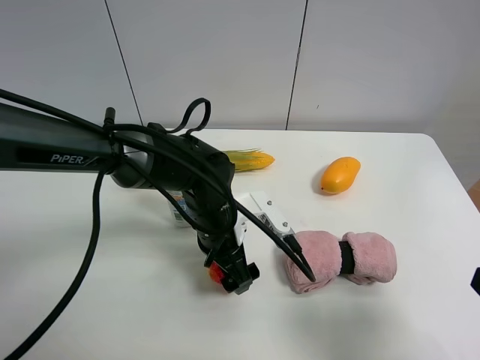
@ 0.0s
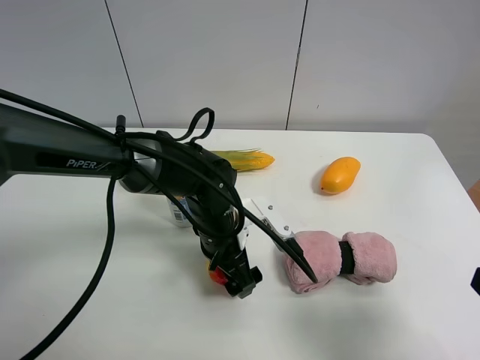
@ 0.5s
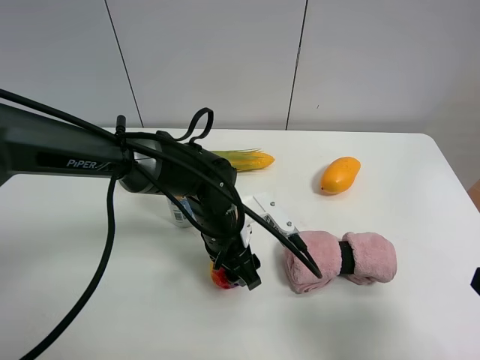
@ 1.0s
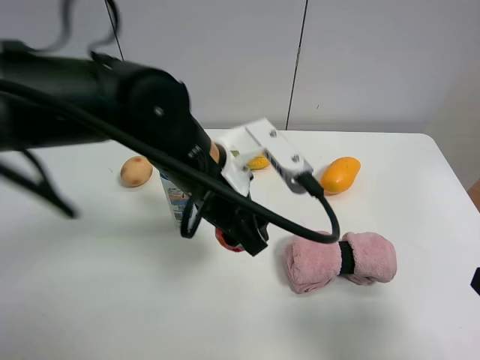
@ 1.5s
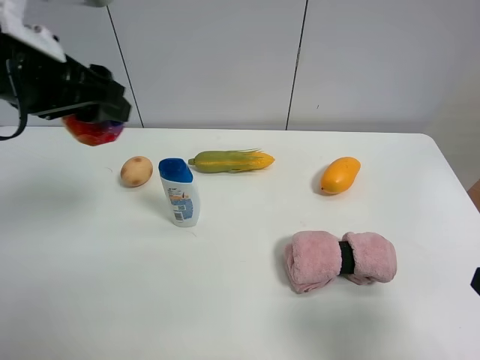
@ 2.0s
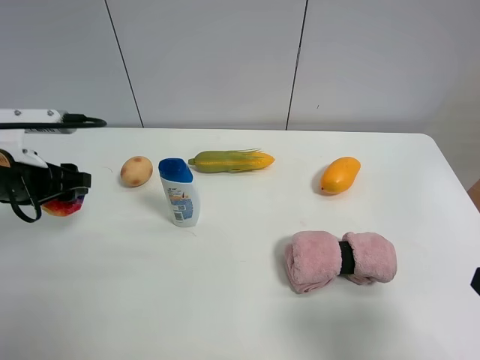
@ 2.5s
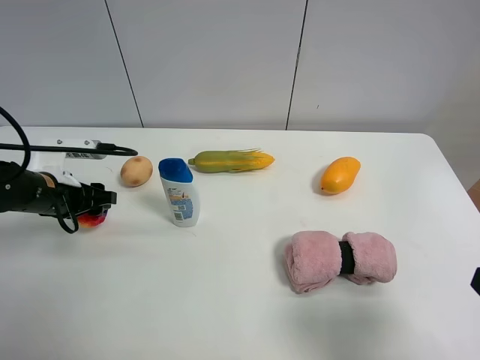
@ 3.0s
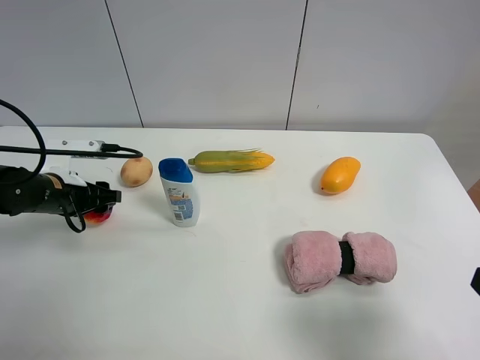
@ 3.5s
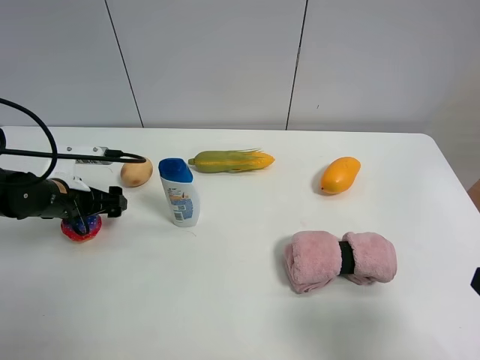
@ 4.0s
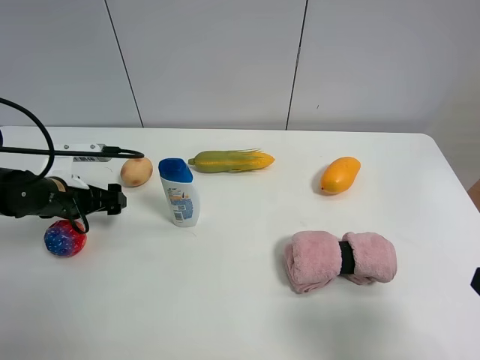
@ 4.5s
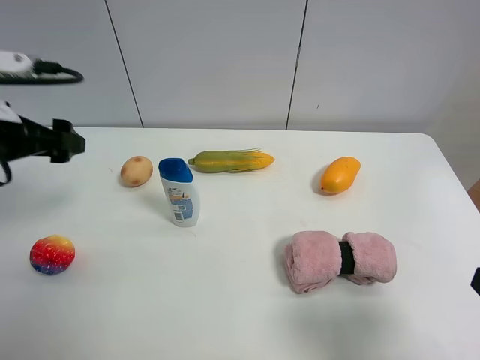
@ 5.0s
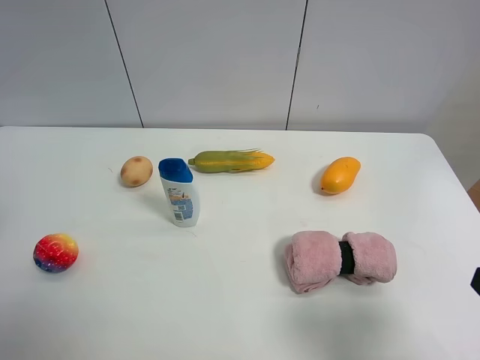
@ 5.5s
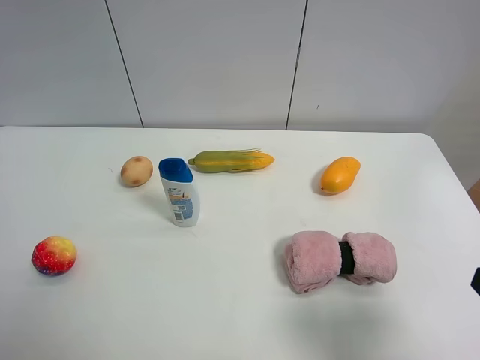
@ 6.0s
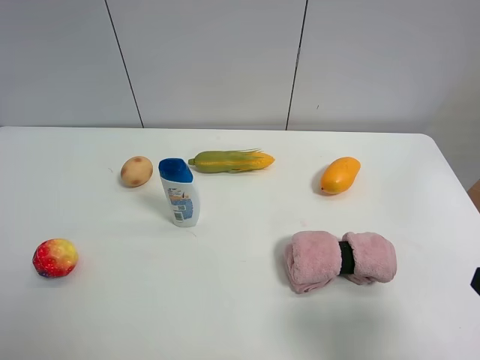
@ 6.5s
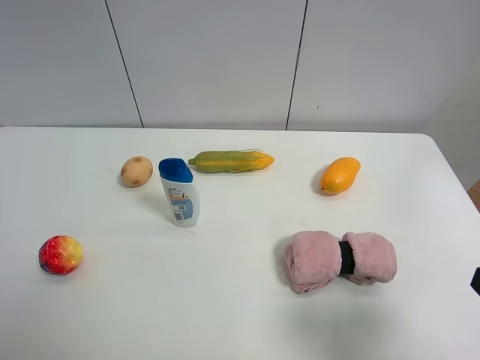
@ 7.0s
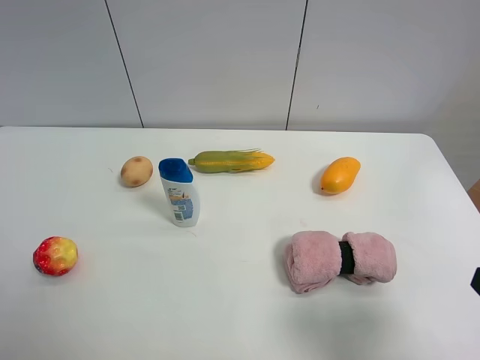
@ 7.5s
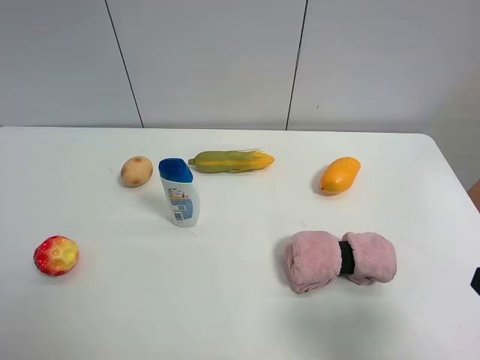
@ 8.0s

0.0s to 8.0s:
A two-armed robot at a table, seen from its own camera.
Task of the whole recording: the gripper move the object.
Step, 1.0s to 4.0s: Place the colorful ball on the table with the left gripper.
0.0s to 2.0s: The left gripper heads upward and to the left, covering some 30 cm, and closes.
2.0s to 4.0s: The left gripper moves downward, about 25 cm, and opens its fingers.
4.0s to 6.0s: The left gripper heads upward and backward, covering some 35 cm.

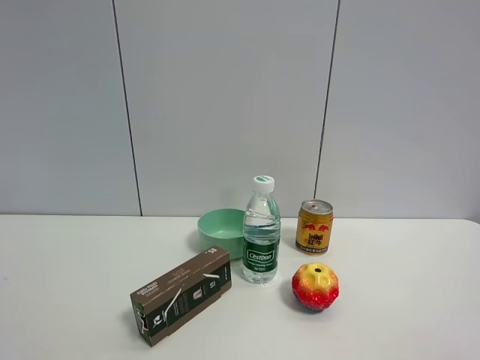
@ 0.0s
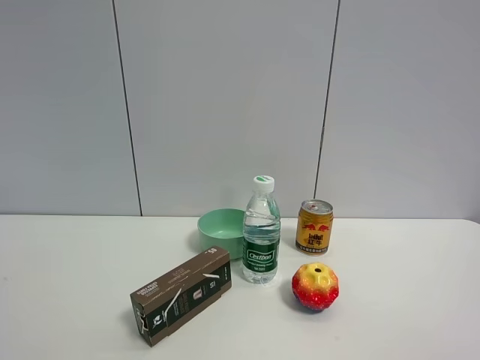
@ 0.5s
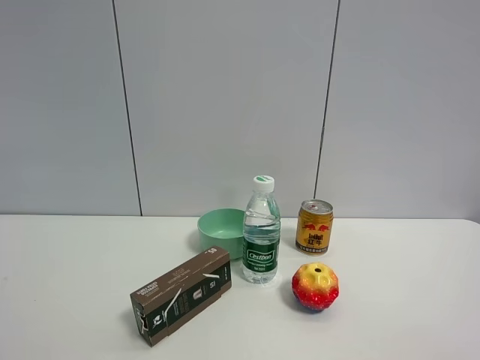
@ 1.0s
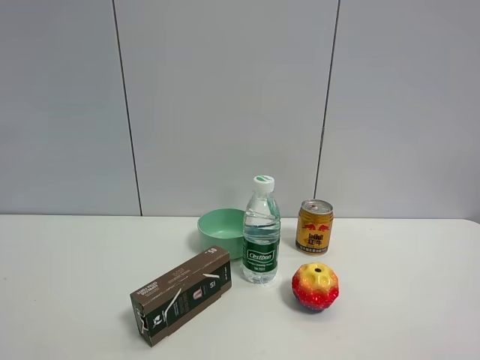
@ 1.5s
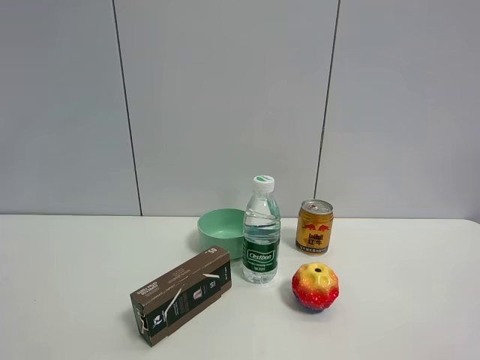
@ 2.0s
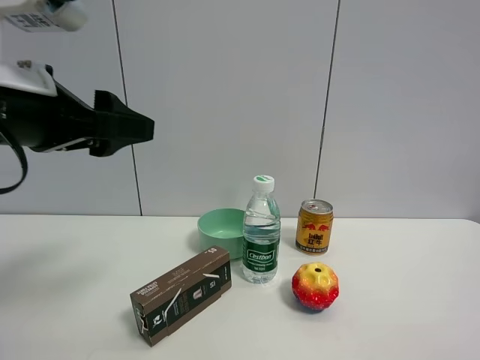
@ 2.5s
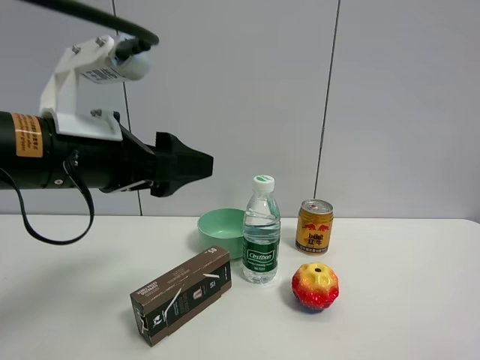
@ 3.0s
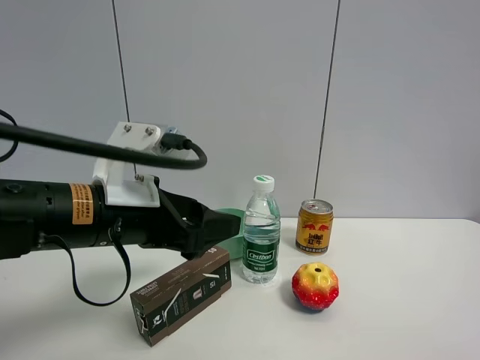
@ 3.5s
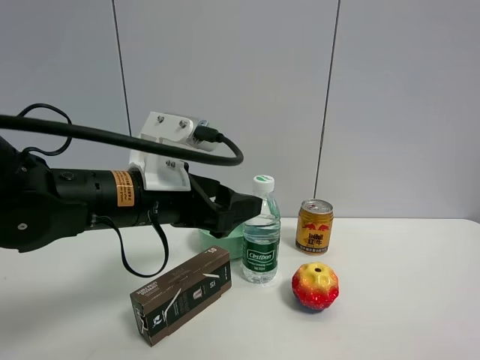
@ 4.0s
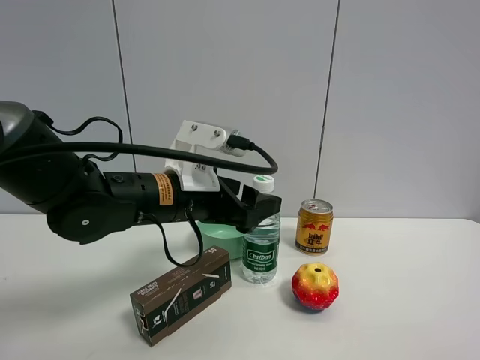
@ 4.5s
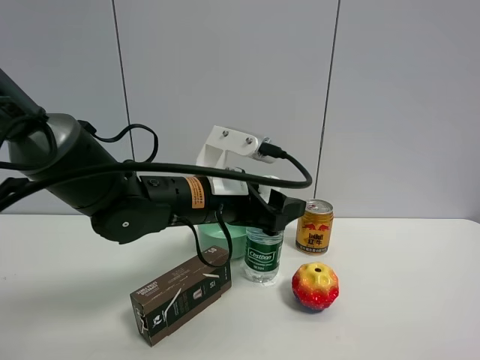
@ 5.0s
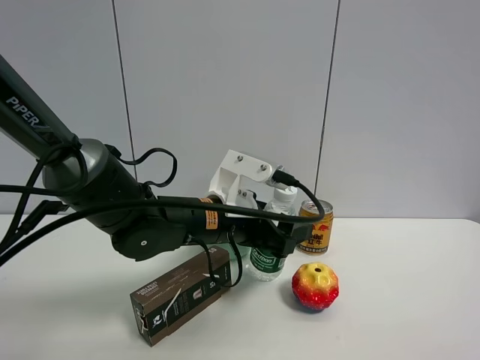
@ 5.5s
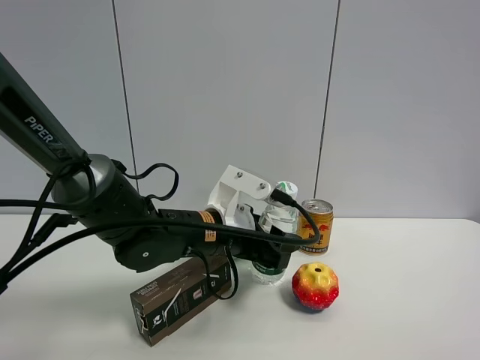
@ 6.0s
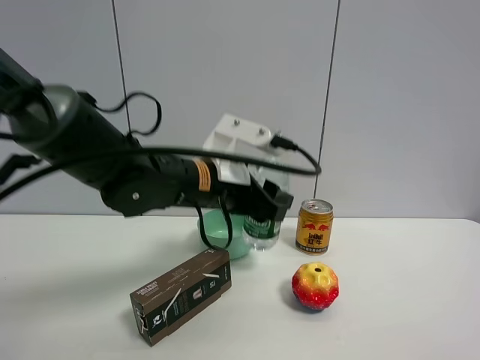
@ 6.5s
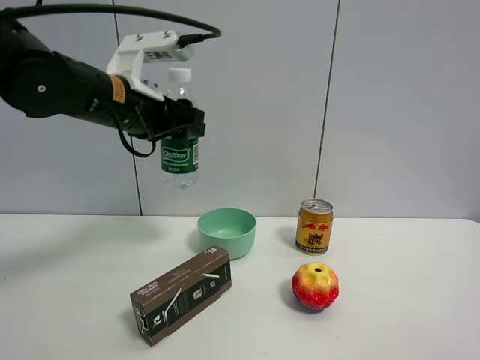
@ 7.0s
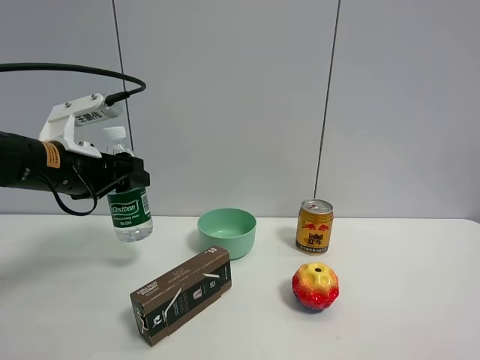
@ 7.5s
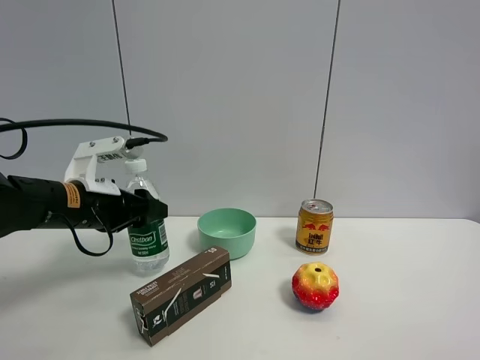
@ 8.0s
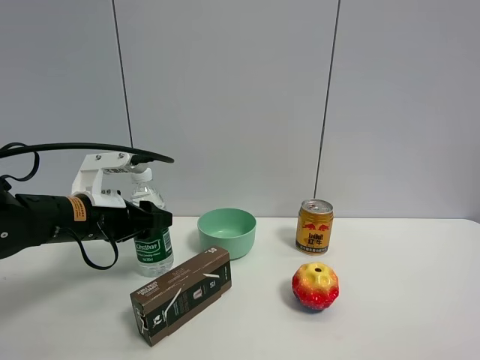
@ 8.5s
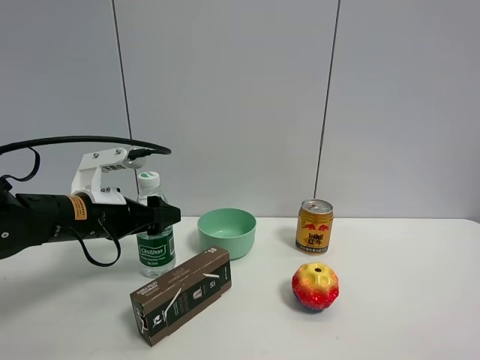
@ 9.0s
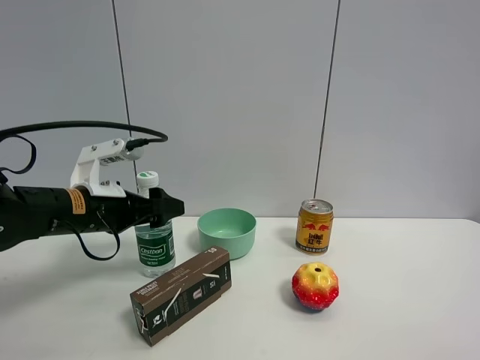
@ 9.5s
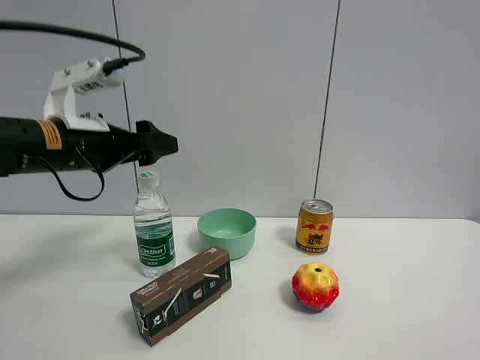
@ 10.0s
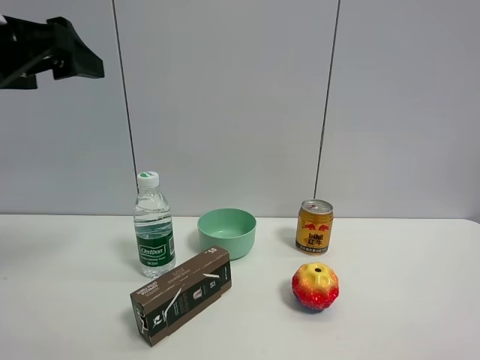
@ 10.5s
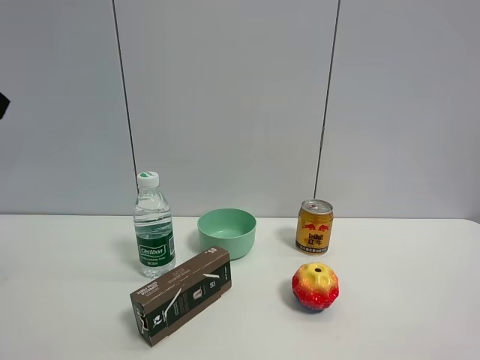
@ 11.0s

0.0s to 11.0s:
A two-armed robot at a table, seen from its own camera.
Task of the whole recording: the gripper move the object.
Step, 0.0s to 6.0s: Grasp the YiBao mineral water with the left gripper.
Step, 6.5s to 10.0s: Place the YiBao mineral water on the table with the left gripper.
2.0s to 3.5s: The left gripper moves to the right, downward and forward, some 25 cm.
3.5s to 5.5s: The left gripper is displaced to the right, forward and downward by approximately 15 cm.
5.5s to 7.5s: The left gripper heads to the left, covering roughly 20 cm, and closes up.
7.5s to 9.0s: The left gripper moves downward, about 5 cm, and opens up.
9.0s to 11.0s: The left gripper shifts about 30 cm upward and backward.

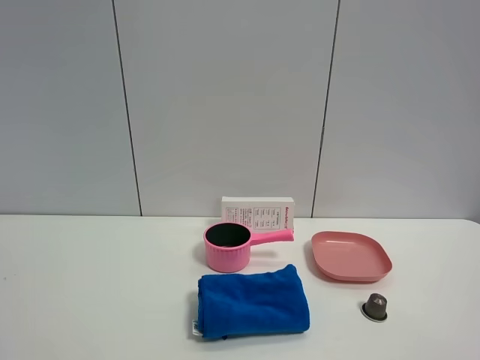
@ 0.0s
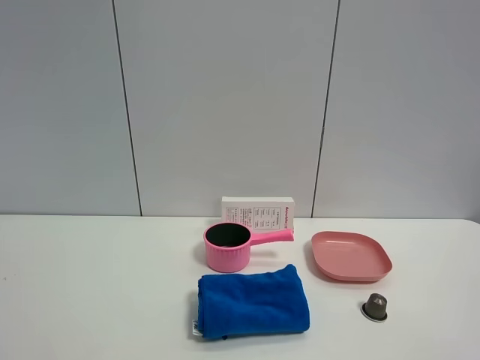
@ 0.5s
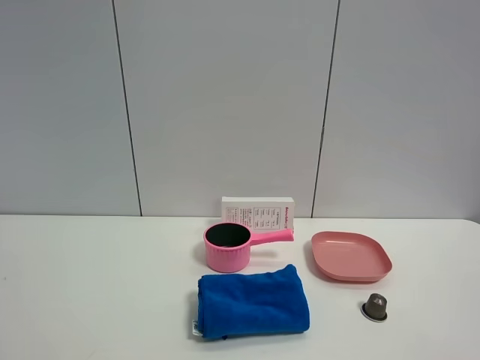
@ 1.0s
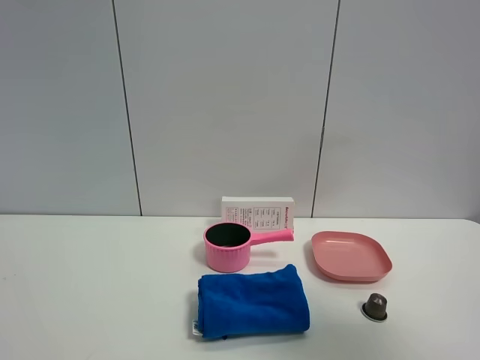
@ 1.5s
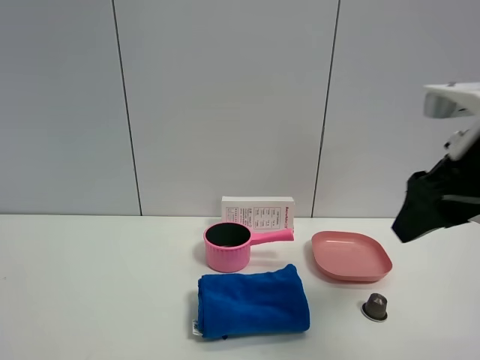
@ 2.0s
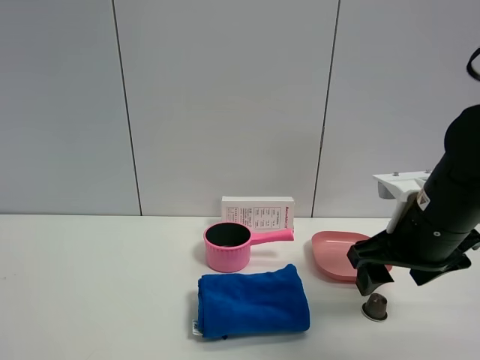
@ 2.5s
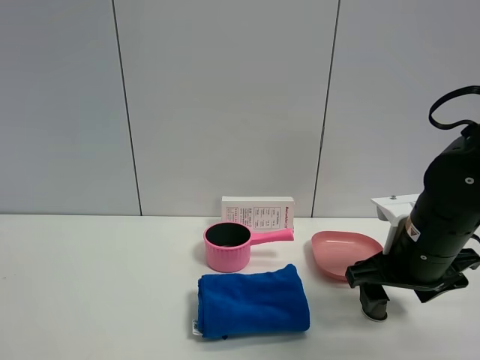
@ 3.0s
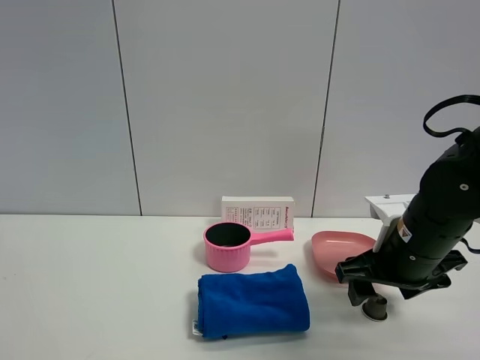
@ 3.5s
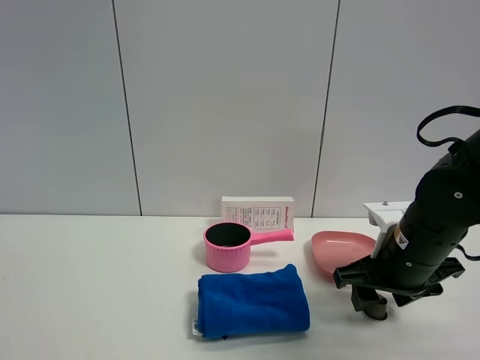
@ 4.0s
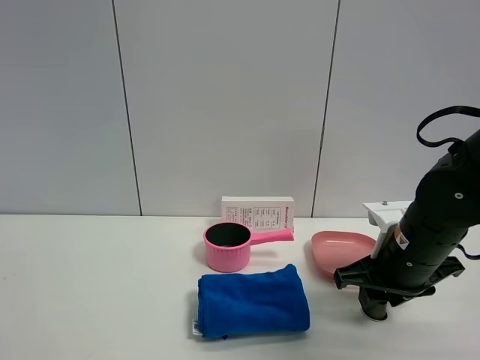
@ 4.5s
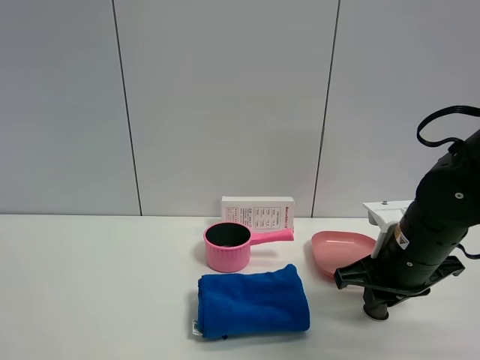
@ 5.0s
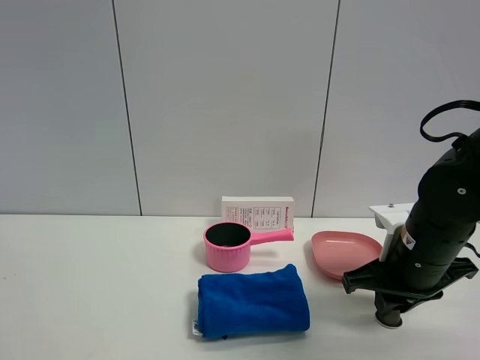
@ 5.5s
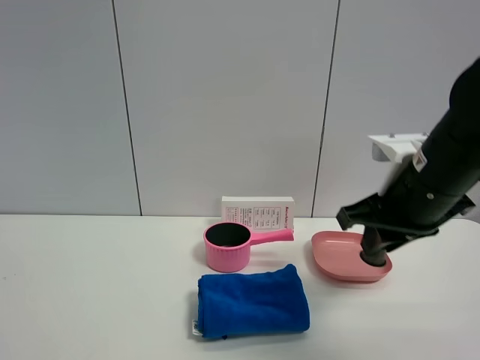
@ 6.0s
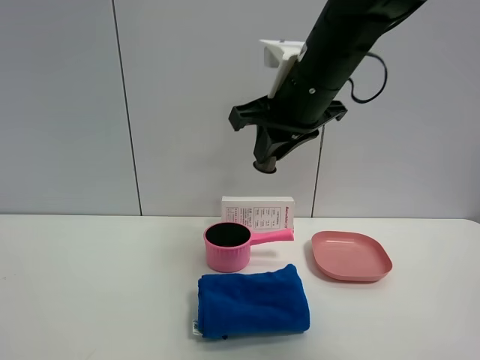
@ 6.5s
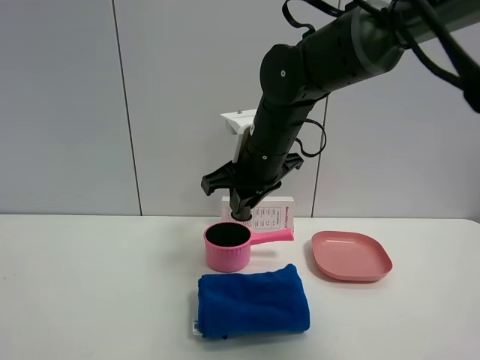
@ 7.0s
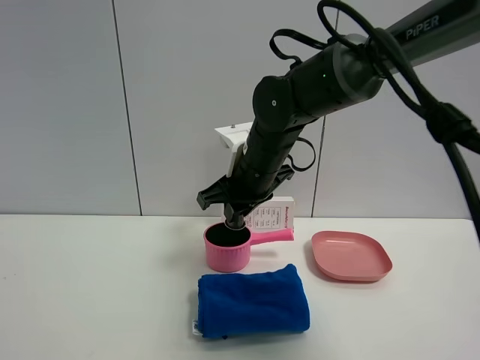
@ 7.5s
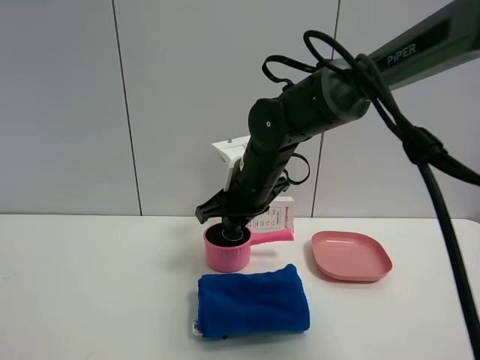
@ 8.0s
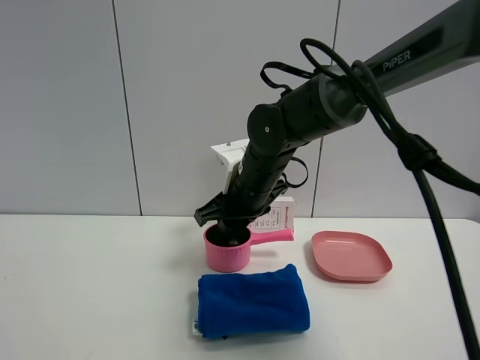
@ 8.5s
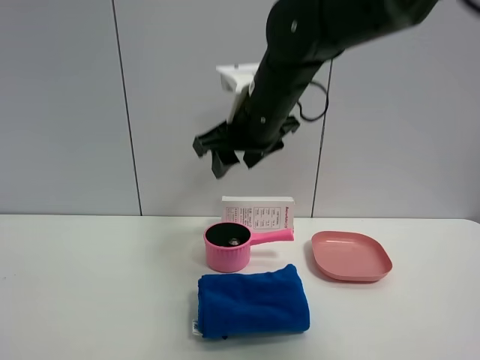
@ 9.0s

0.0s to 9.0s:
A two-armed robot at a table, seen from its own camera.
Task of the whole recording: the gripper move the object.
Step, 0.0s to 5.0s: Grasp the coffee capsule with the right gripper.
Step, 5.5s to 8.5s: Place the coffee capsule into the pink pot with the right gripper.
0.0s to 2.0s: The right gripper moves forward, about 25 cm.
2.0s to 4.5s: The right gripper travels downward and forward by approximately 15 cm, and closes.
4.5s to 7.0s: The right gripper shifts about 20 cm to the left, upward and forward.
7.0s to 9.0s: The right gripper heads upward, covering some 5 cm, and opens its fingers.
